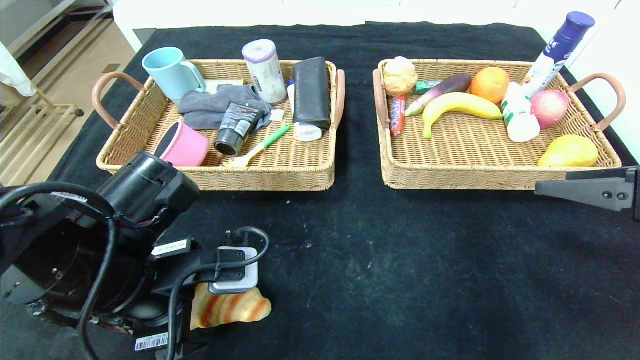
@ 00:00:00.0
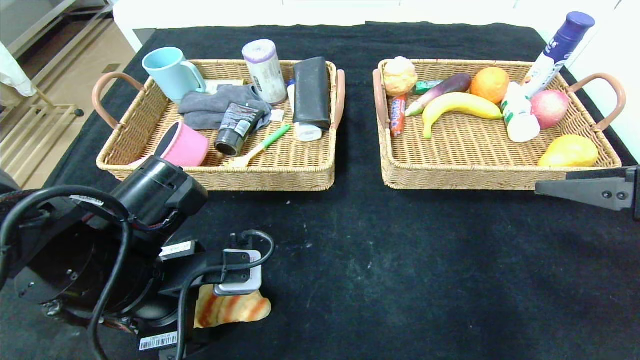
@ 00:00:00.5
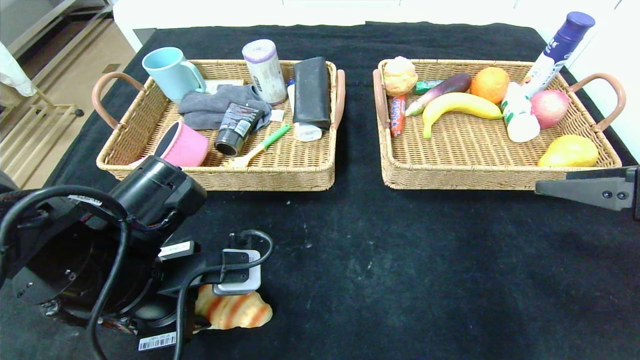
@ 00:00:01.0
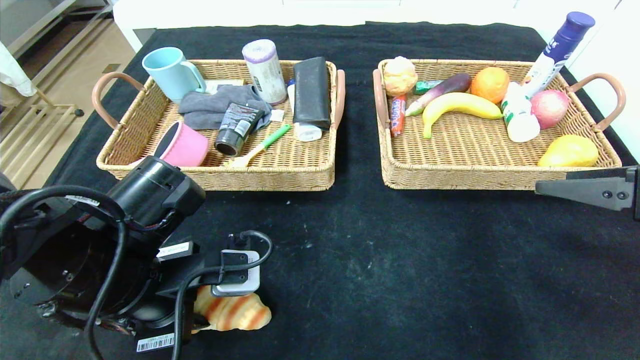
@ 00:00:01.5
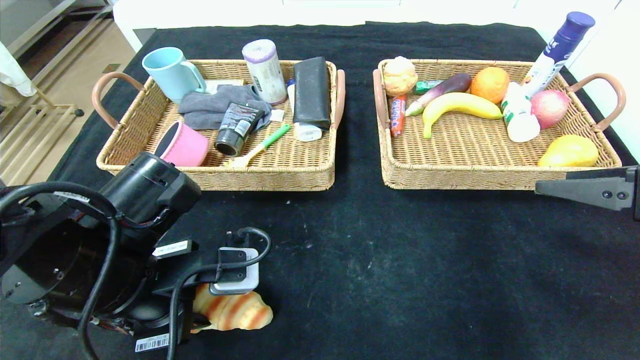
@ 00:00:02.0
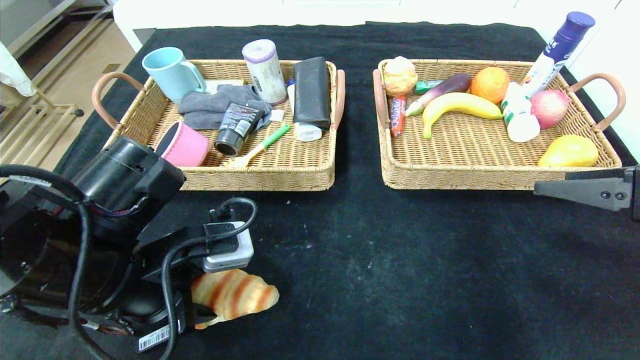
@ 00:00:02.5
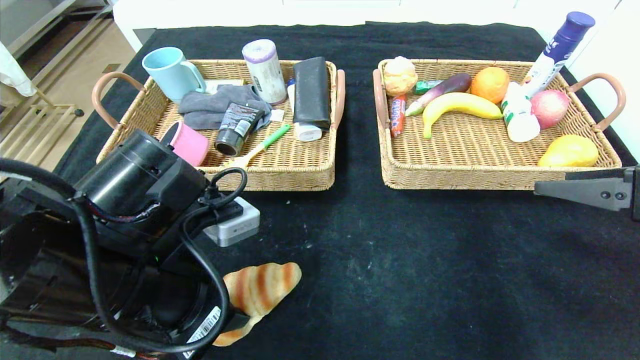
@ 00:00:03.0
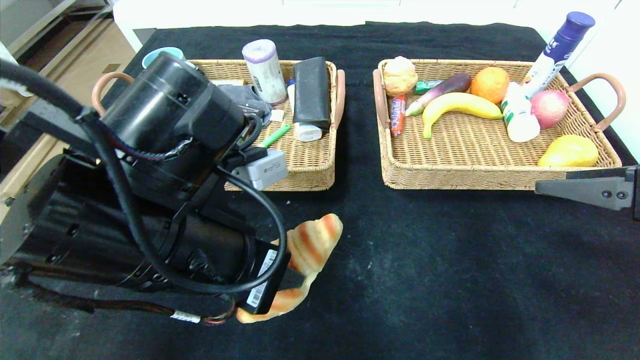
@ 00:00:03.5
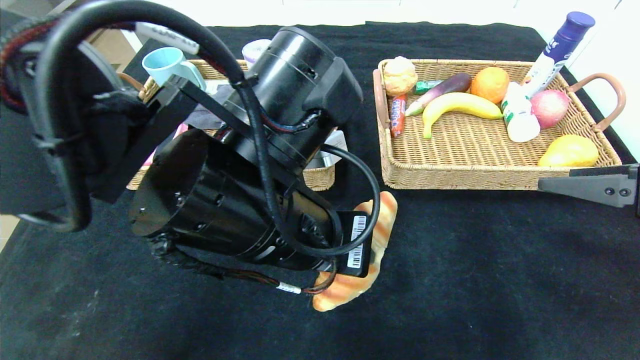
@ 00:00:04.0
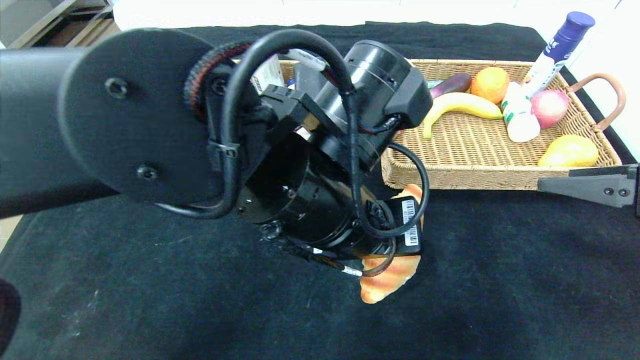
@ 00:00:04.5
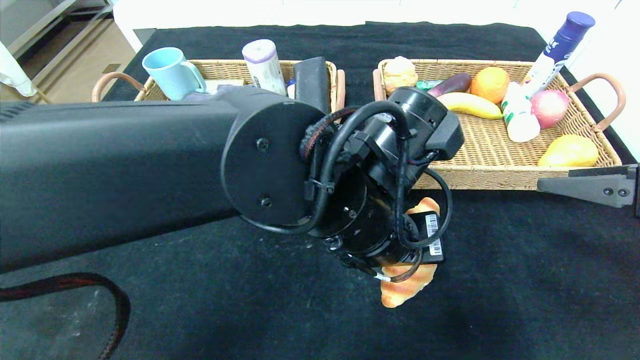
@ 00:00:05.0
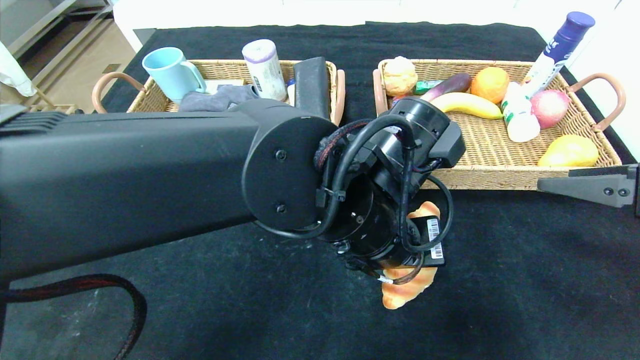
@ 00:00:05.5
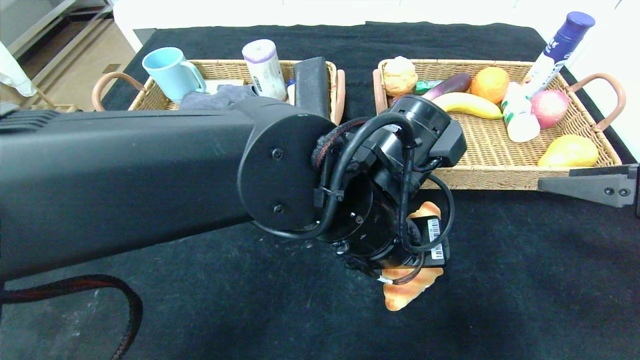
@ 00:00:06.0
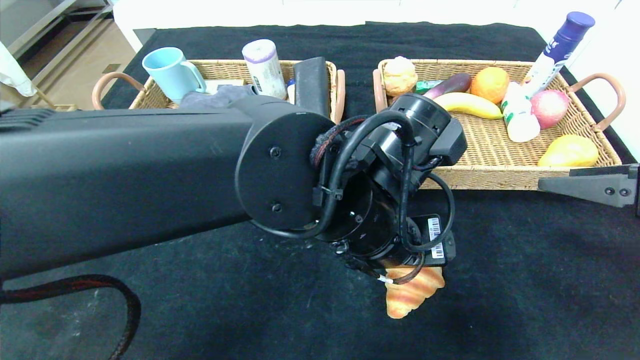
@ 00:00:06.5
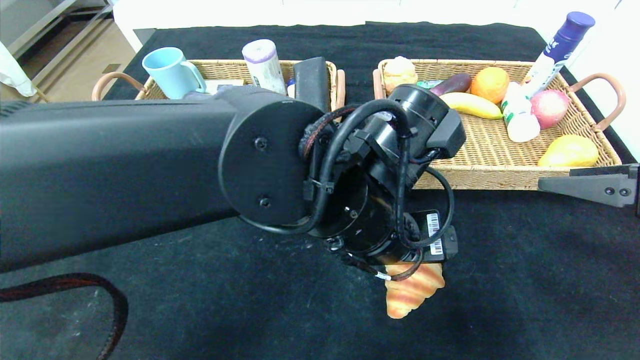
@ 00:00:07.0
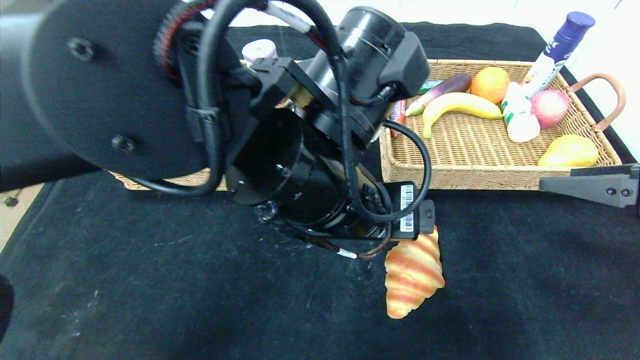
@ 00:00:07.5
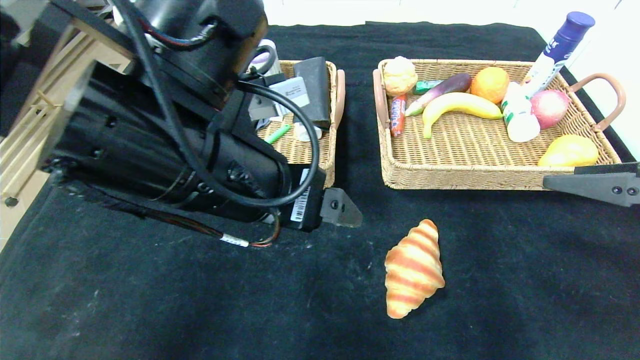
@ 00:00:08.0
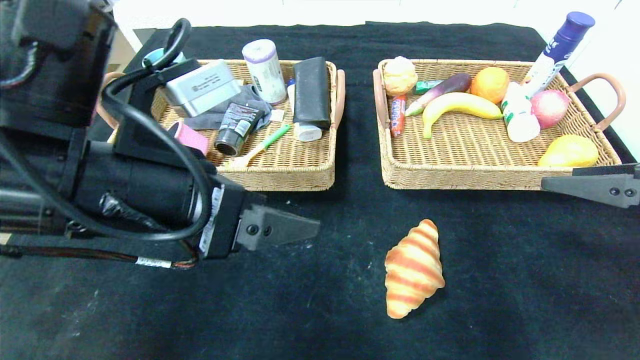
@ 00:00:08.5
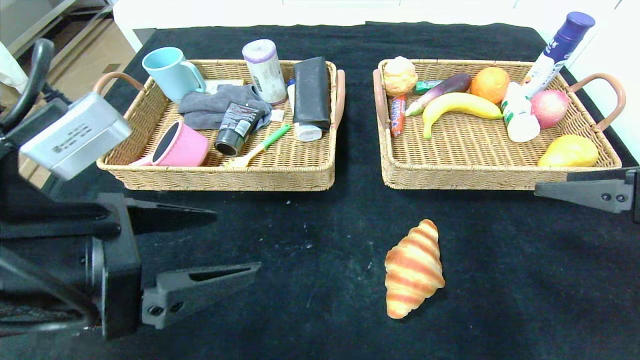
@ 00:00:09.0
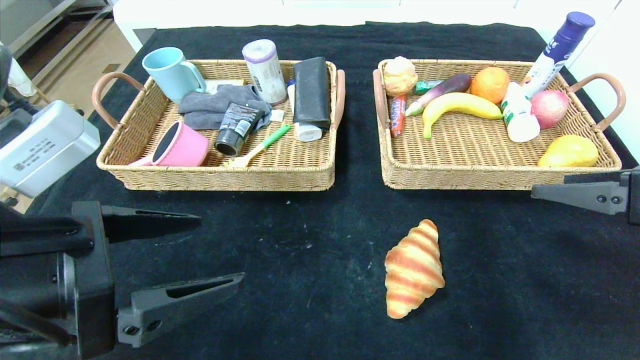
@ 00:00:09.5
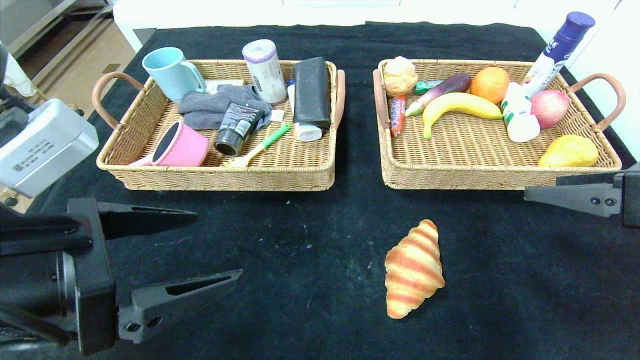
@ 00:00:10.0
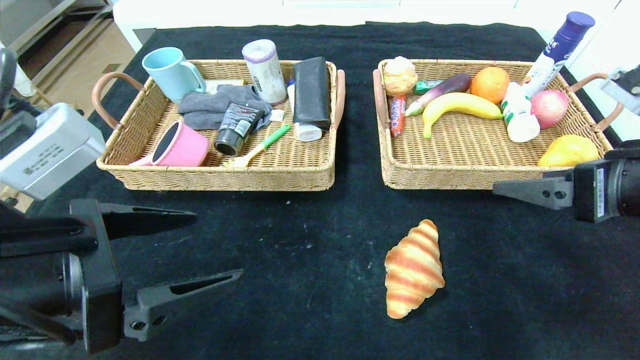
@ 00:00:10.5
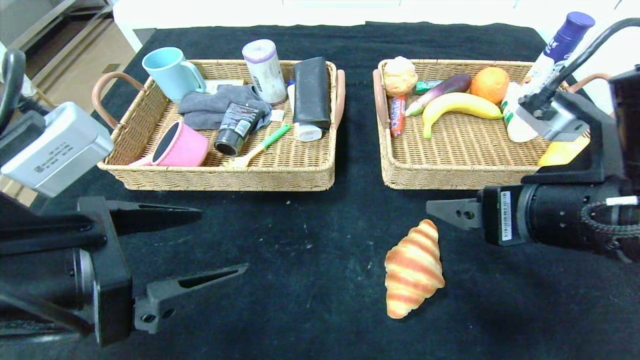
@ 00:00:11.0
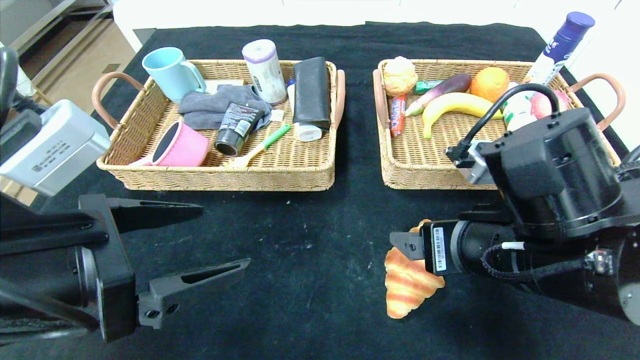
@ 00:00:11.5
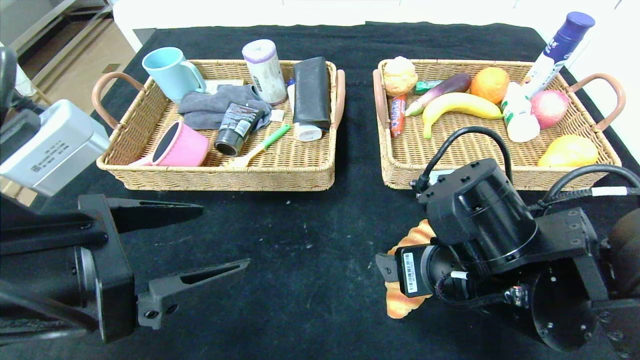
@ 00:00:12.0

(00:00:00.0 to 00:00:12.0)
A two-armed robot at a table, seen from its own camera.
Step, 00:00:00.0 - 00:00:08.0: Place the croissant in the center of the table.
00:00:00.0 - 00:00:02.0: The left gripper closes.
00:00:02.0 - 00:00:04.0: The left gripper goes some 15 cm to the right and upward.
00:00:04.0 - 00:00:06.0: The left gripper travels to the right by some 10 cm, and opens.
00:00:06.0 - 00:00:08.0: The left gripper moves to the left and upward, about 15 cm.
00:00:08.0 - 00:00:10.0: The left gripper is displaced to the left and backward by some 15 cm.
00:00:10.0 - 00:00:12.0: The right gripper shifts approximately 20 cm to the left.

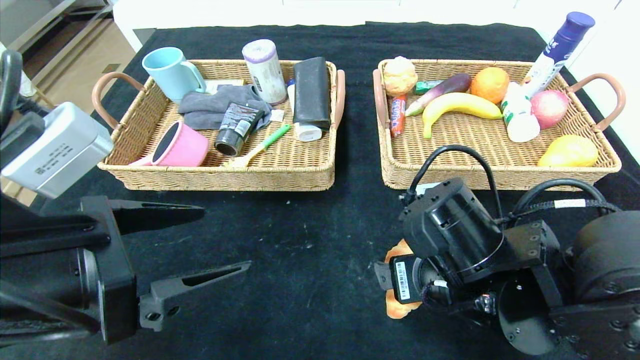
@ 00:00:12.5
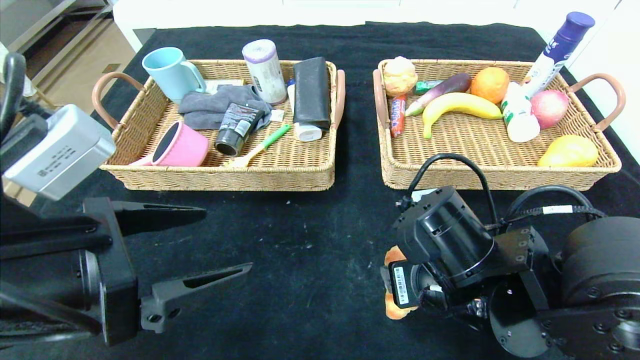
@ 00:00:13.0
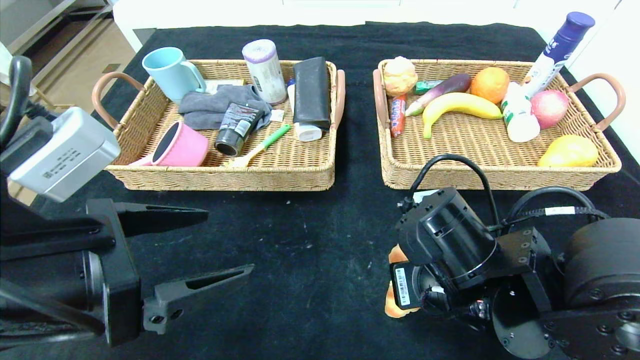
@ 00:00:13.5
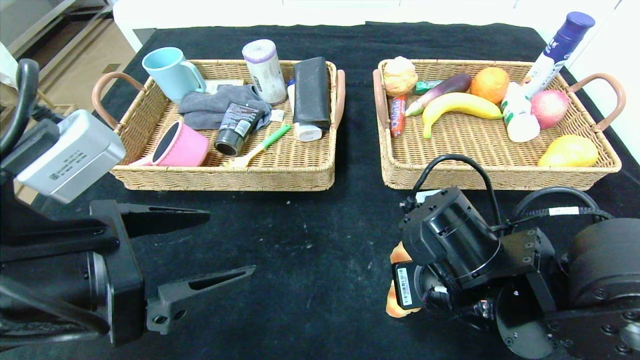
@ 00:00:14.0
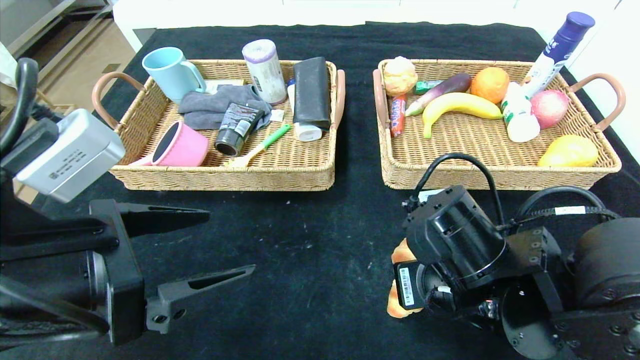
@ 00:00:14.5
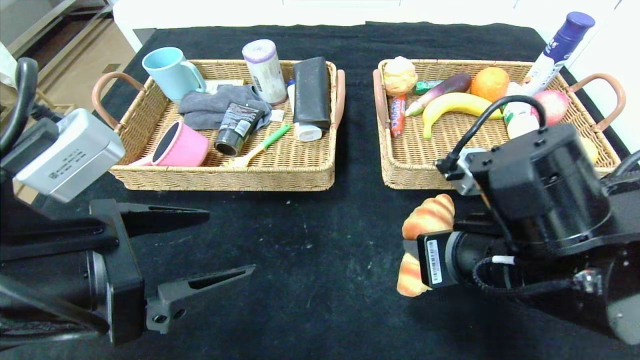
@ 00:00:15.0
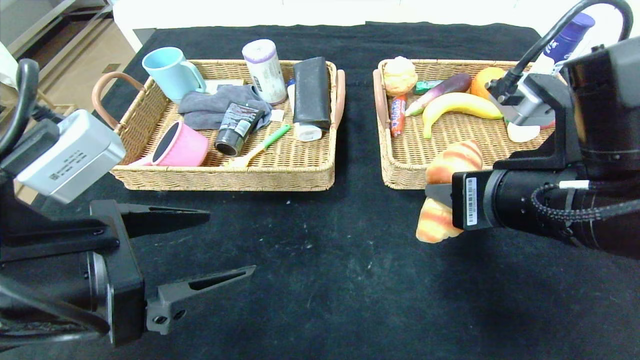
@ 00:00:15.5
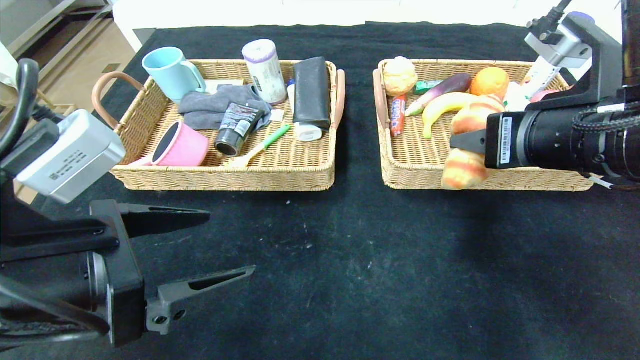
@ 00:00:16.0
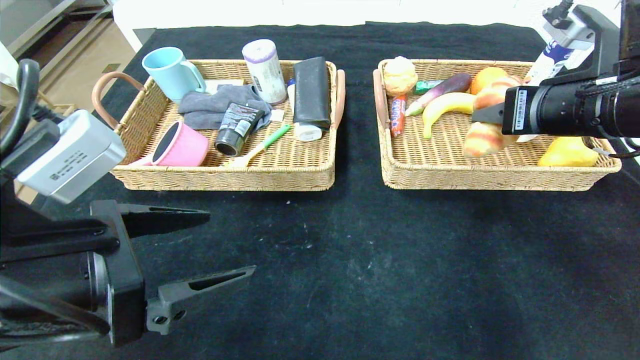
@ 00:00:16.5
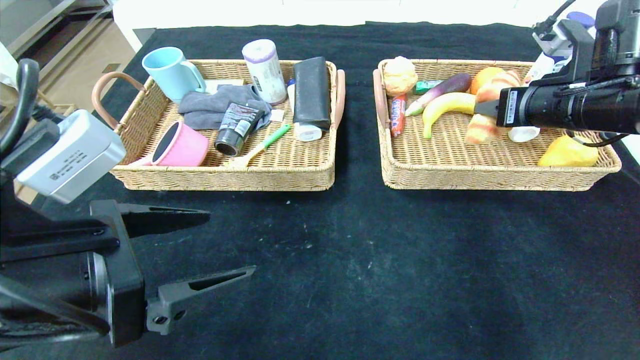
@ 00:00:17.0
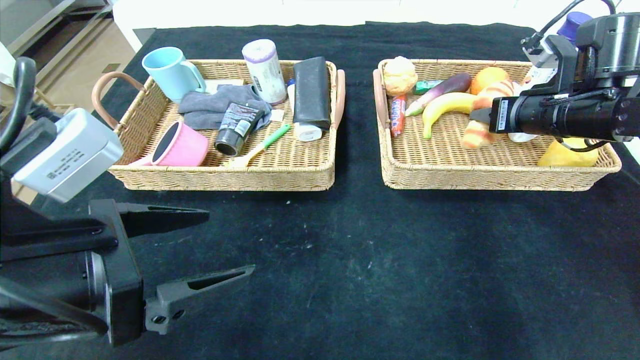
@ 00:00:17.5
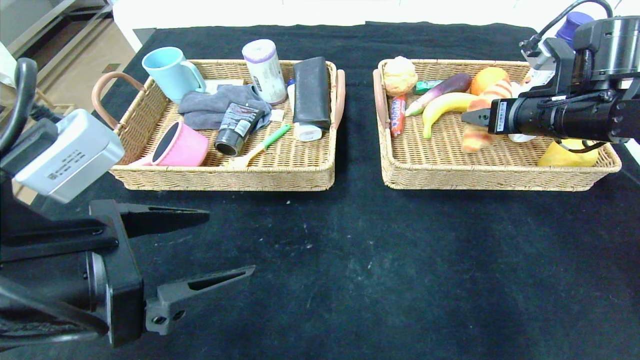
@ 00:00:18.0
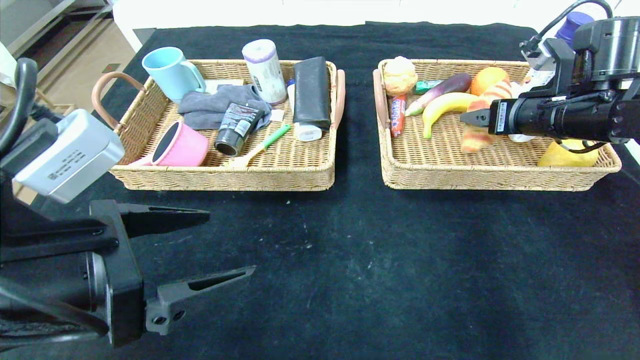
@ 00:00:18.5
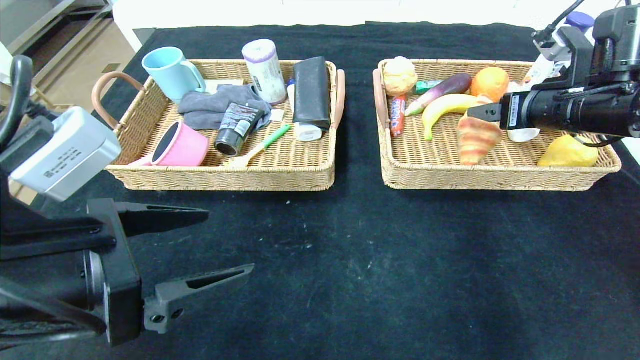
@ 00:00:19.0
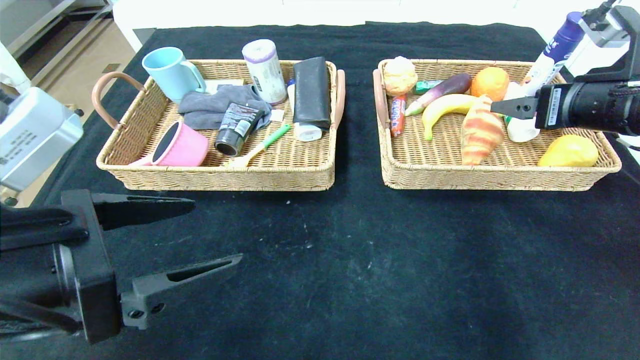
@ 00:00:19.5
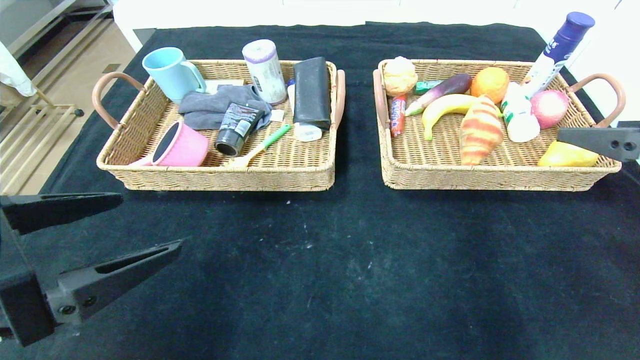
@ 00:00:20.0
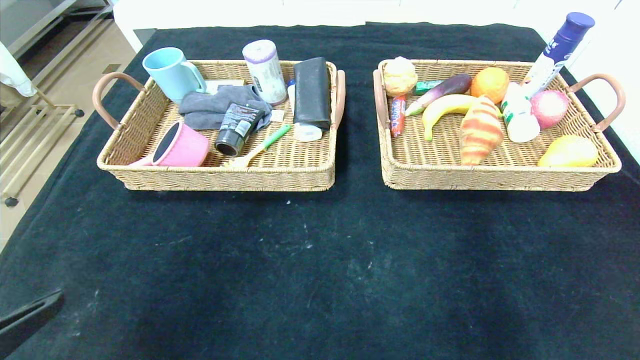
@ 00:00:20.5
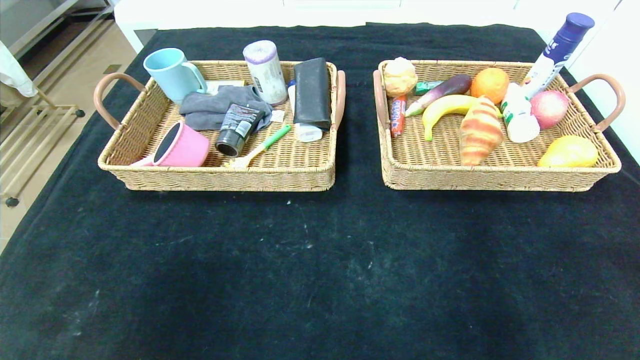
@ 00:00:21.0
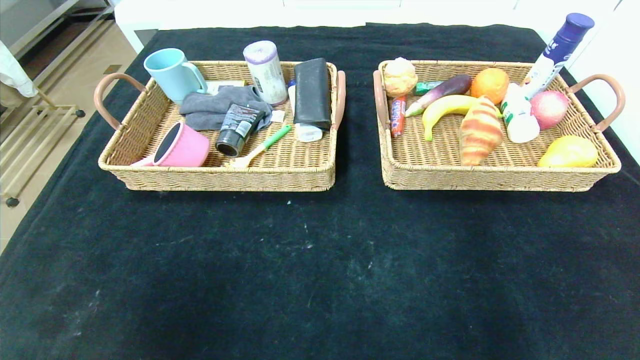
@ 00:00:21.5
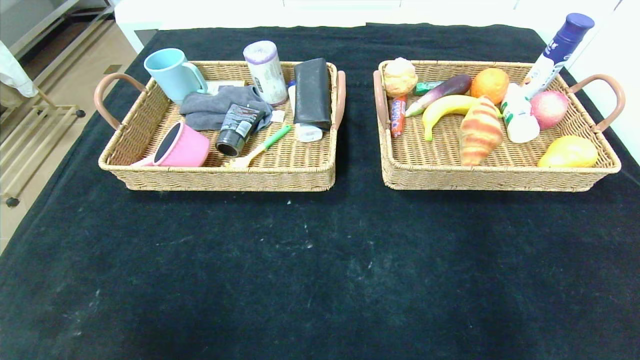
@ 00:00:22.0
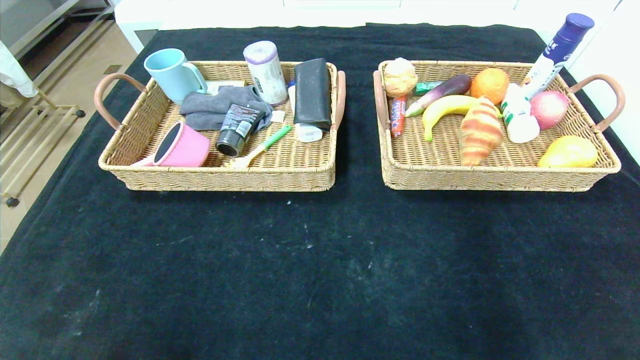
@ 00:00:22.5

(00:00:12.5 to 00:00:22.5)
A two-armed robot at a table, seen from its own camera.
Step, 00:00:12.5 - 00:00:19.5: Grasp the croissant and put it in the right basket.
00:00:12.5 - 00:00:14.5: The right gripper closes its fingers.
00:00:14.5 - 00:00:16.5: The right gripper shifts approximately 20 cm upward, to the right and forward.
00:00:16.5 - 00:00:18.5: The right gripper is displaced forward by approximately 10 cm, and opens its fingers.
00:00:18.5 - 00:00:20.5: The right gripper travels backward by some 30 cm; the left gripper shifts about 15 cm backward and to the left.
00:00:20.5 - 00:00:22.5: Both grippers move downward, roughly 20 cm.
